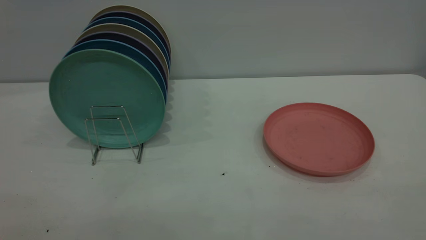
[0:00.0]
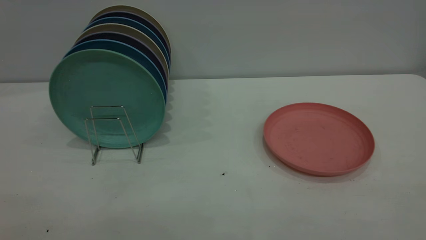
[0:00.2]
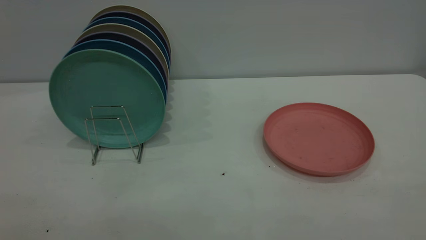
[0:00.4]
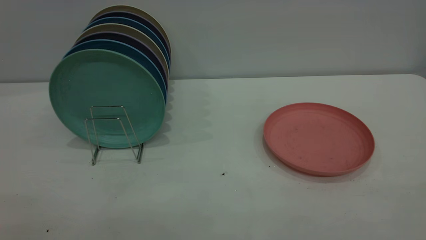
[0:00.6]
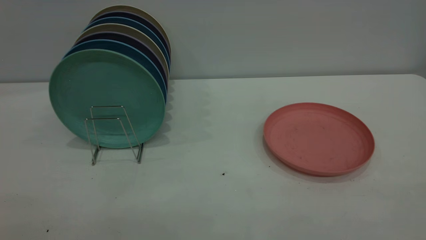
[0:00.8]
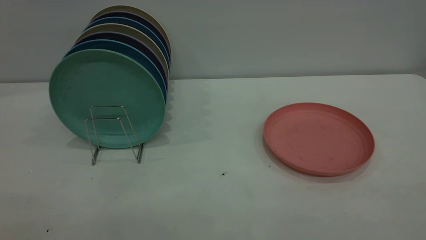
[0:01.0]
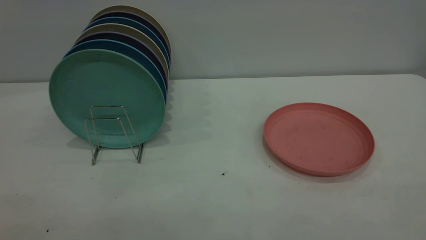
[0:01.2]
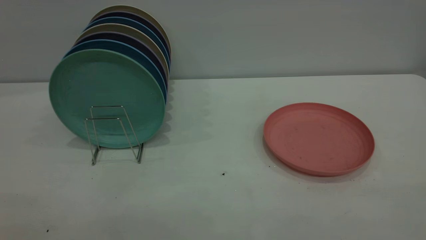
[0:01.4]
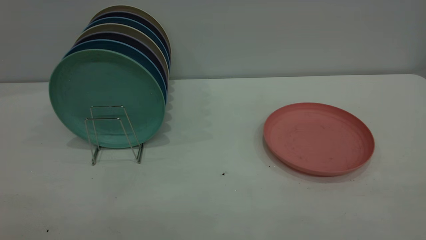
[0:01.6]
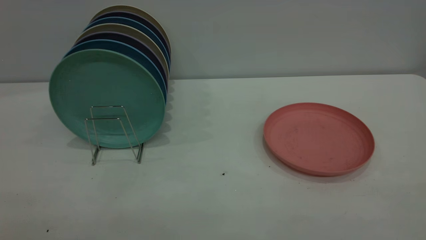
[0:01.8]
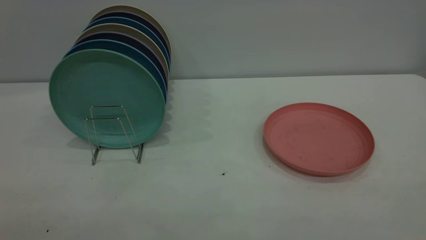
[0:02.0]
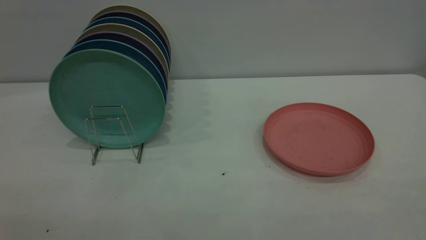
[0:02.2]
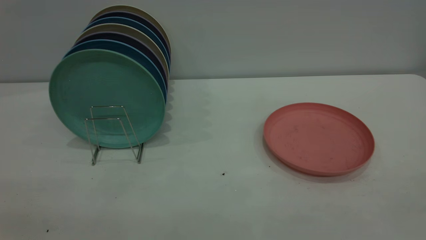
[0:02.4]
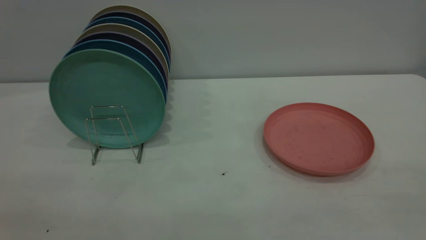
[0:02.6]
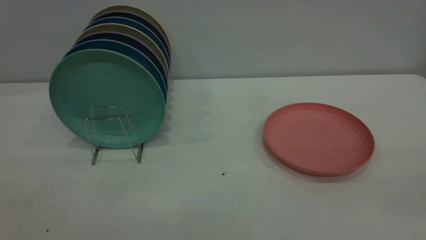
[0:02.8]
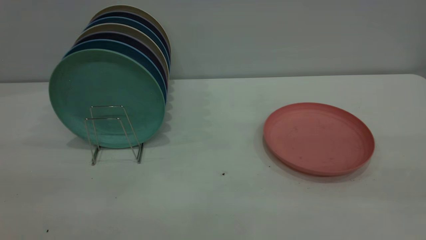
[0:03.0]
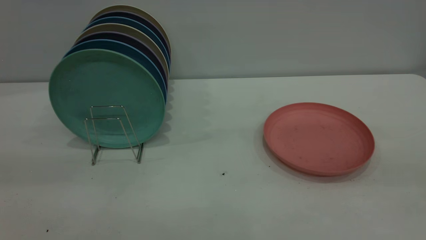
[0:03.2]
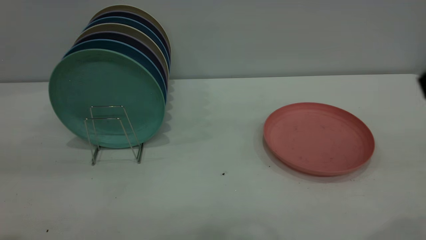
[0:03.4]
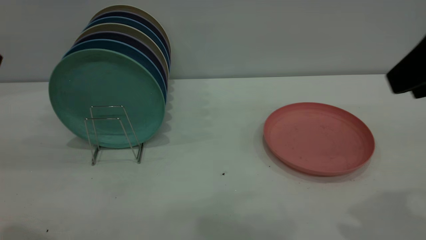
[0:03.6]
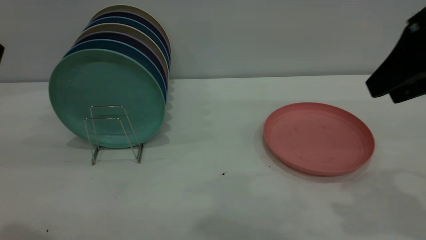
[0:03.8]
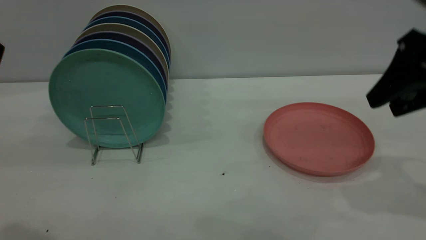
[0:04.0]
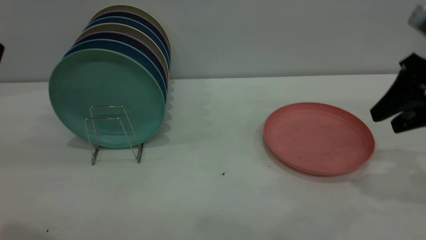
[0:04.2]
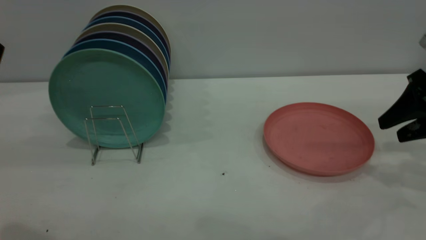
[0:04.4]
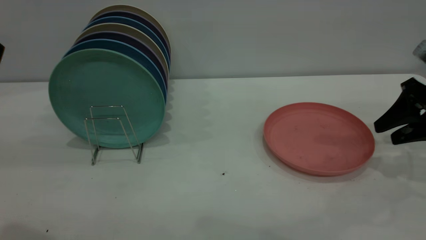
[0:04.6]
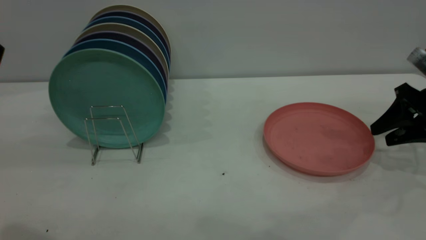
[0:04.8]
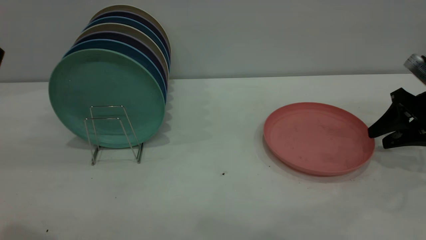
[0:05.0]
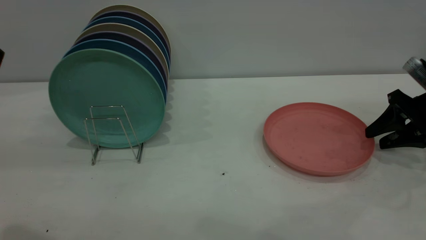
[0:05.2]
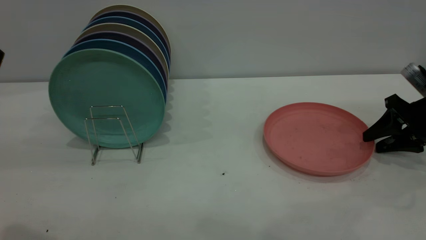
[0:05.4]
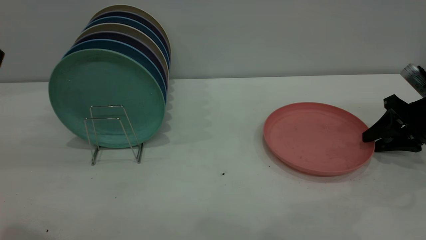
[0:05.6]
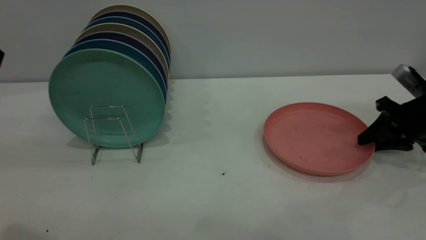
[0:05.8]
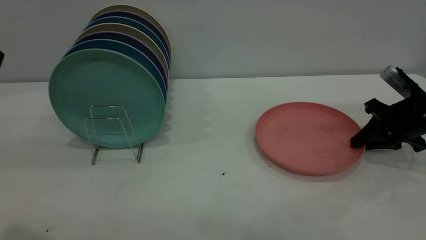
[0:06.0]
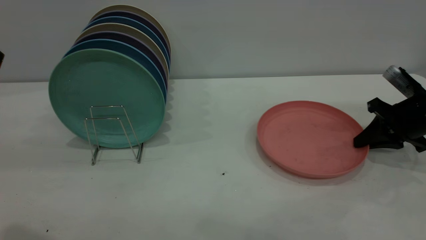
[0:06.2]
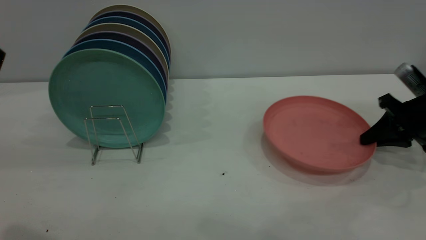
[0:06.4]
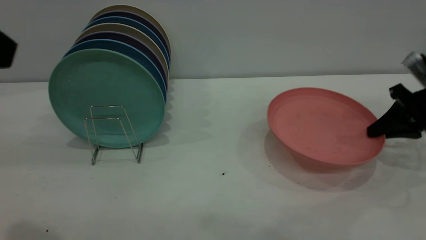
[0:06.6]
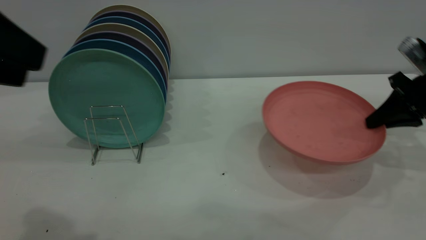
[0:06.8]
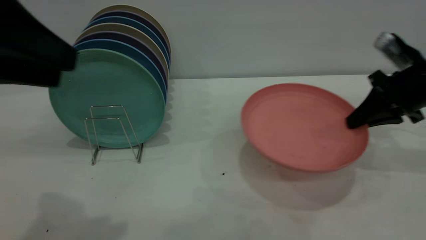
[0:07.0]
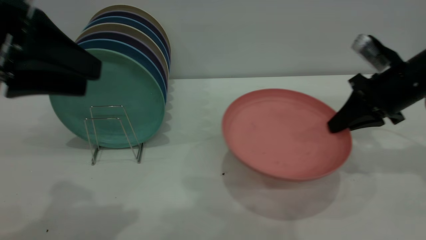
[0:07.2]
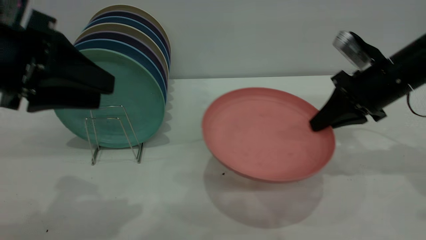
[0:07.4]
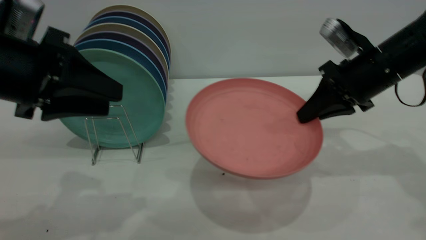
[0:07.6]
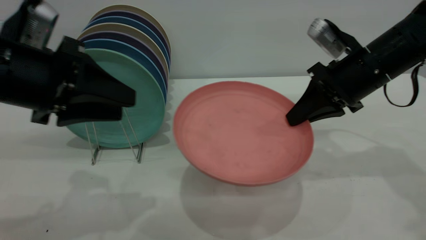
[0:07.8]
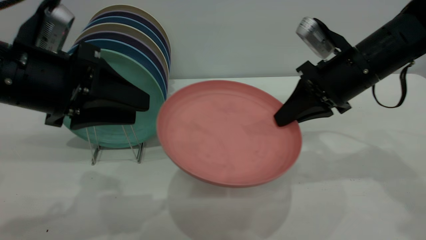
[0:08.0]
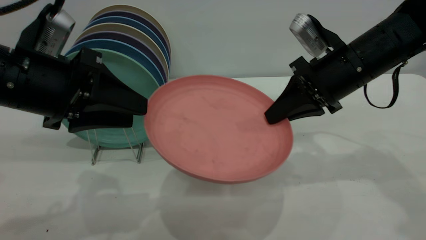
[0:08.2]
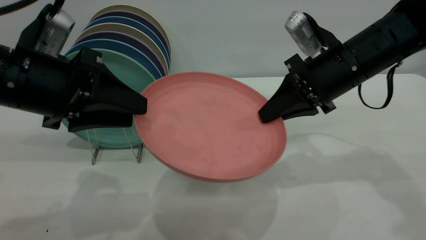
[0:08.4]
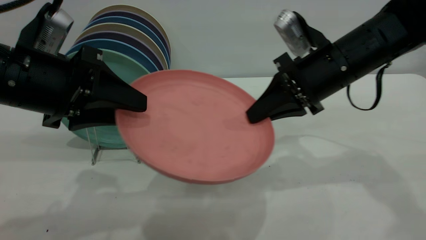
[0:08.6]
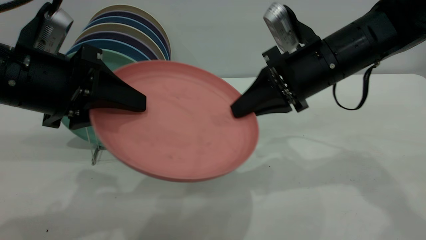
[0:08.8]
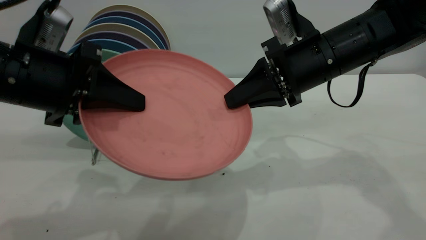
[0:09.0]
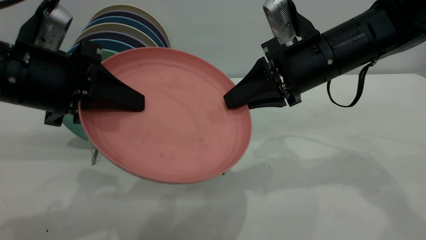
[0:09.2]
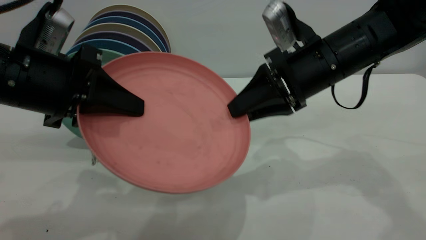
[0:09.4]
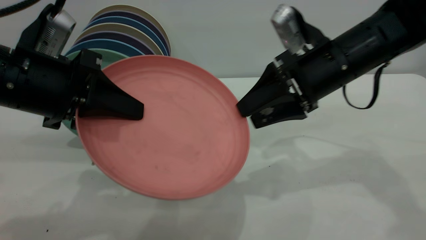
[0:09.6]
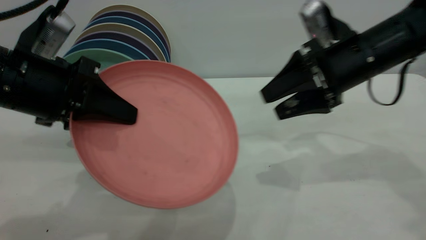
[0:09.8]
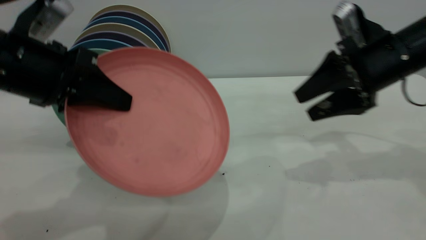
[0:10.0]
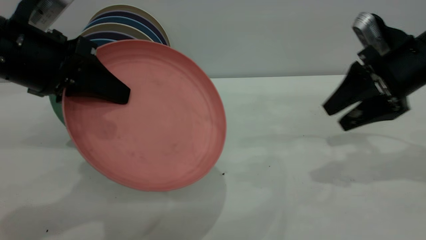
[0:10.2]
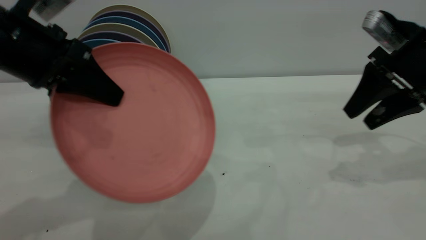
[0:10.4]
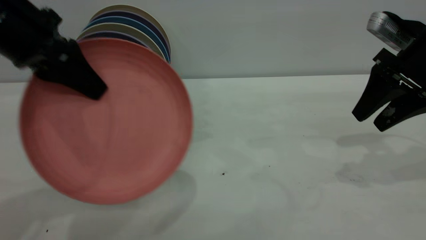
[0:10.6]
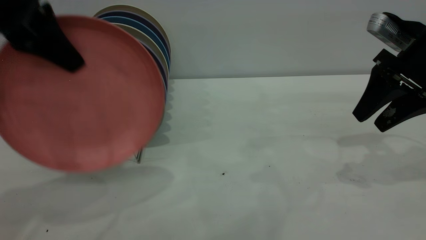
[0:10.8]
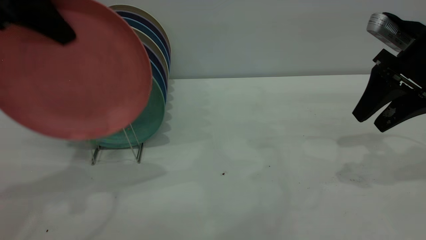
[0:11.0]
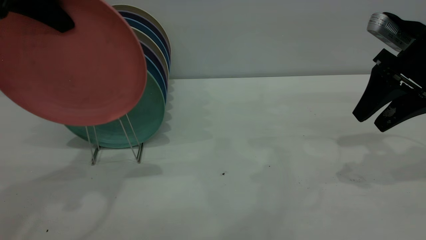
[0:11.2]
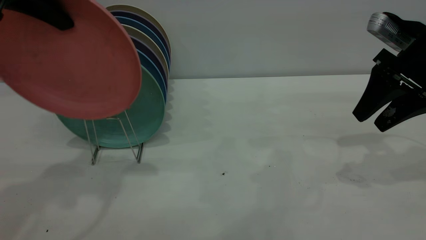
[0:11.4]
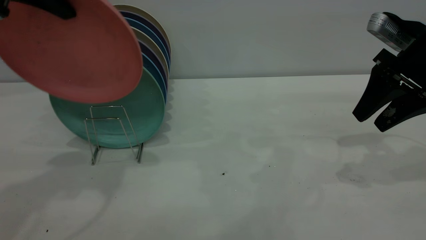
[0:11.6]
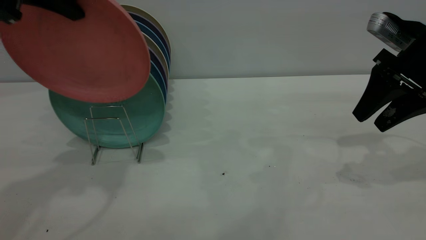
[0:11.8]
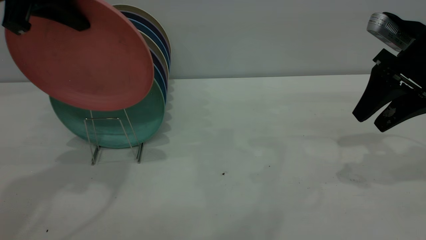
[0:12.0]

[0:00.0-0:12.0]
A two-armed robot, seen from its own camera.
Task of the whole recording: the right gripper grasp the pink plate, the right gripper pass the pink plate to the left gripper, and the left gripper place the pink plate on the plate rack.
Step, 0:00.0 to 0:07.0: Pick up the plate with the right gripper.
Step, 0:07.2 to 0:10.0: Pass the plate from the right gripper to the left gripper.
0:00.0 to 0:01.6: The two grippers keep their place.
0:03.0 to 0:04.4: The right gripper travels forward and downward by about 30 cm.
0:04.4 to 0:06.0: The right gripper travels downward and forward by about 10 cm, and closes its fingers.
0:06.0 to 0:07.6: The right gripper shifts some 15 cm to the left and upward. The left gripper travels downward and forward by some 15 cm.
0:07.6 to 0:09.0: The left gripper closes up; the right gripper moves to the left, some 10 cm.
0:09.0 to 0:10.4: The right gripper heads to the right, covering some 15 cm, and opens its fingers, while the left gripper changes place by some 5 cm.
0:10.4 to 0:12.0: The left gripper goes approximately 10 cm upward and forward.

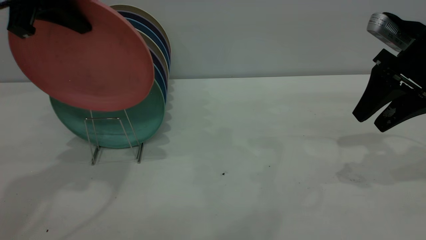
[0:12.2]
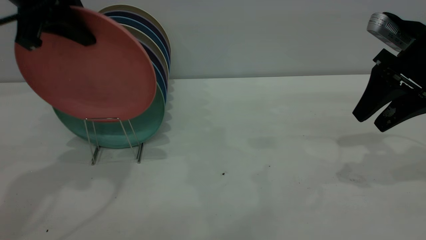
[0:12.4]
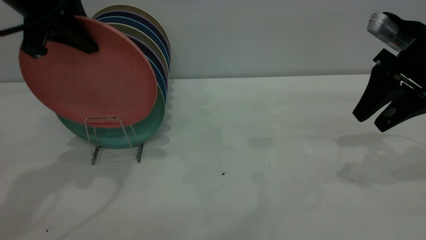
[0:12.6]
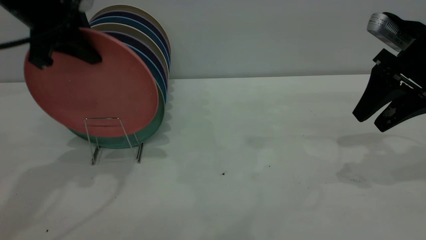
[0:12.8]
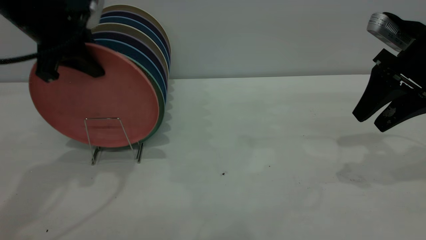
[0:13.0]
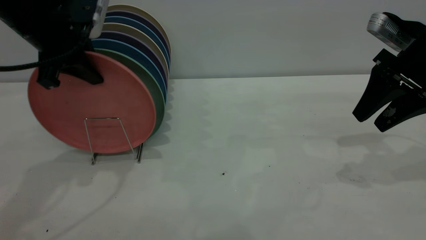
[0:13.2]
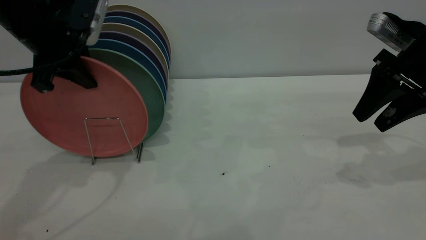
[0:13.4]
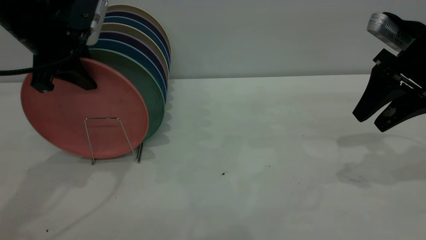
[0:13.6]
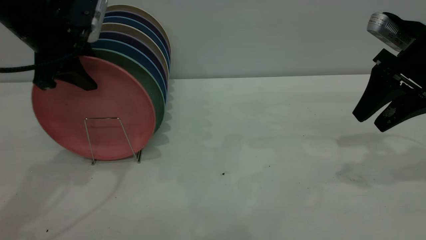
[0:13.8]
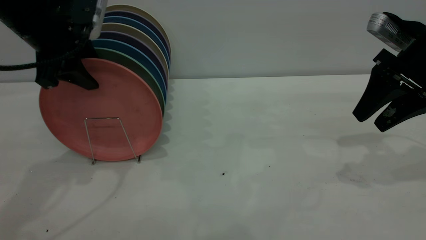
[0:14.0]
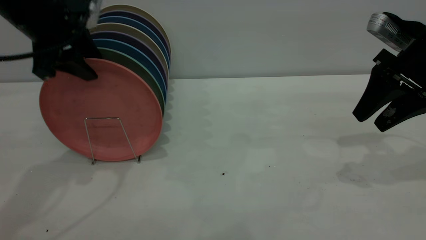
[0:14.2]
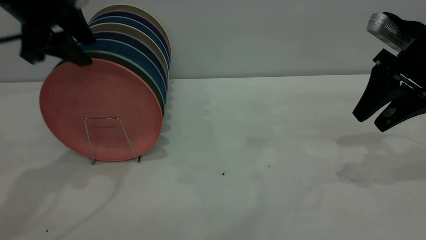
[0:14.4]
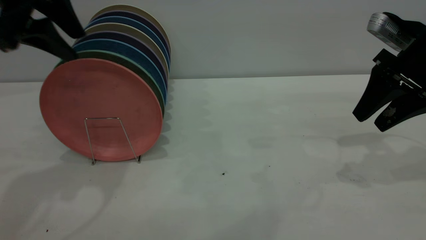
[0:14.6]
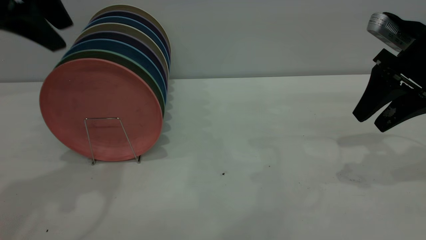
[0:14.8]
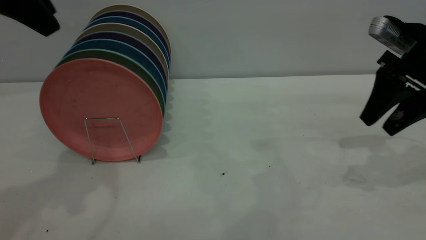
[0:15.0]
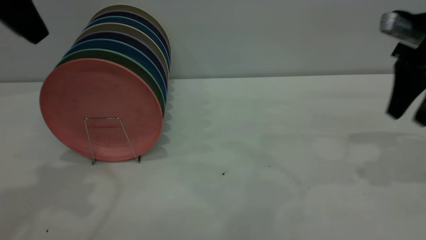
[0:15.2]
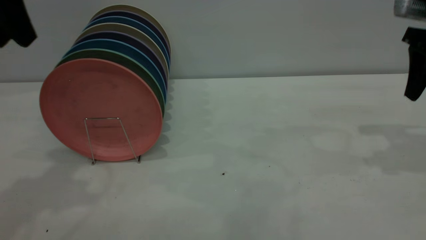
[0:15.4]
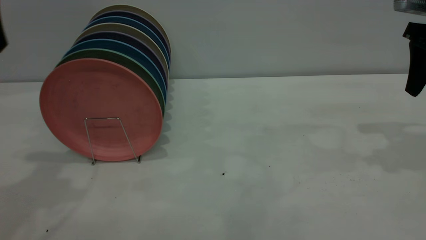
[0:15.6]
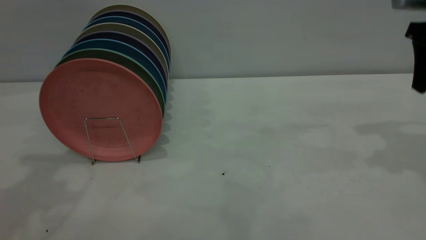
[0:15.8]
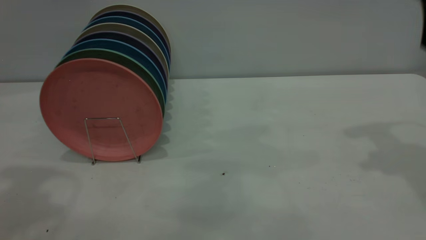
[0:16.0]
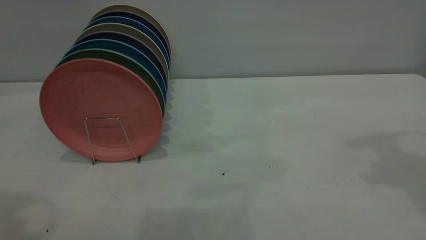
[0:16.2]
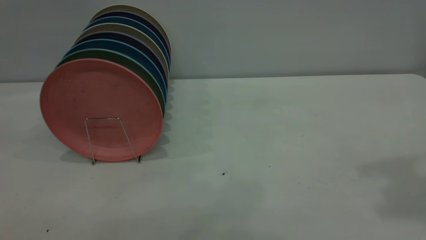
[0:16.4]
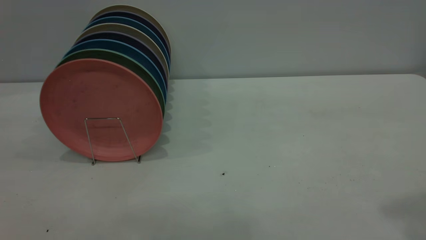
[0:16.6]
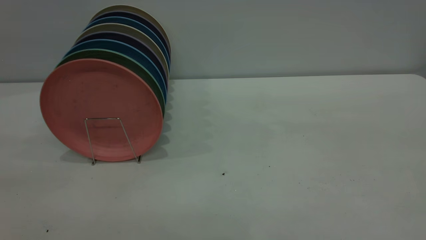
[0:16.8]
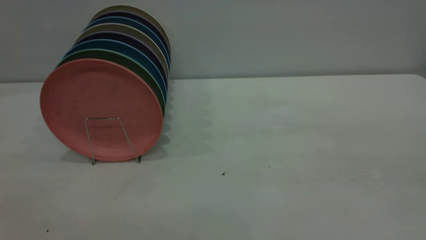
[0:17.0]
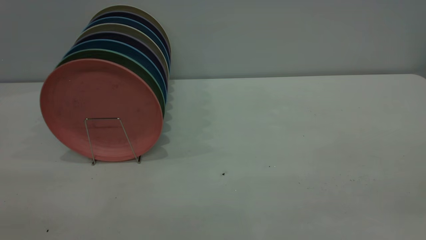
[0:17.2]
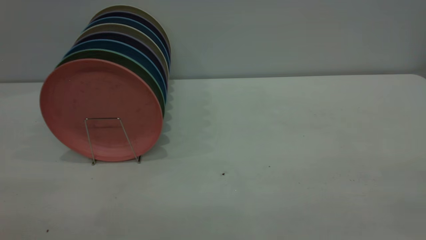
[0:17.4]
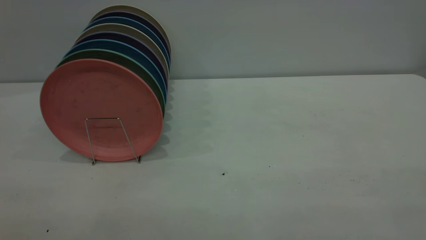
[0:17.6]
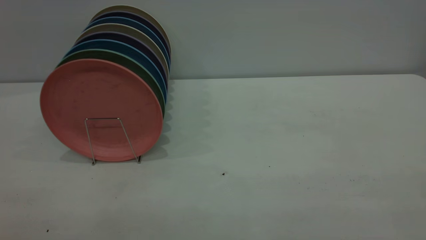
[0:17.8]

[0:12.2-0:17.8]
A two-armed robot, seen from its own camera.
Task of the whole recording: the right gripper grasp the pink plate, the right gripper pass the pink plate to the left gripper, and the left gripper place the pink plate on the plate rack.
Step, 0:12.2 to 0:15.4: Place the plate on the shelf.
0:12.2 to 0:13.6: The left gripper shifts roughly 10 cm downward, and opens up.
0:13.6 to 0:15.0: The left gripper shifts approximately 15 cm upward and backward, and opens.
0:15.0 to 0:16.4: The left gripper goes about 20 cm backward and upward; the right gripper goes about 25 cm upward and backward.
